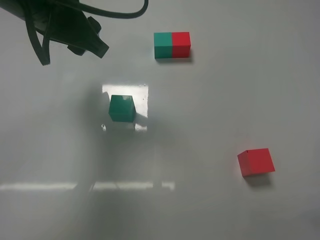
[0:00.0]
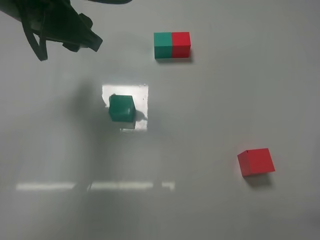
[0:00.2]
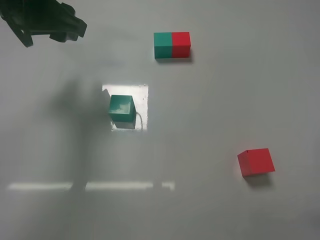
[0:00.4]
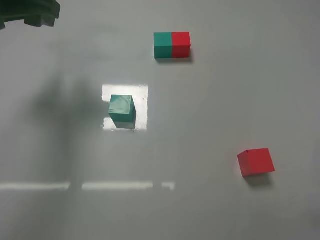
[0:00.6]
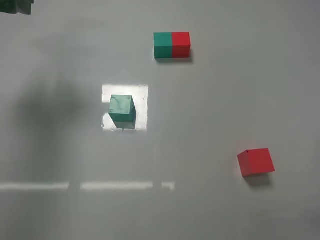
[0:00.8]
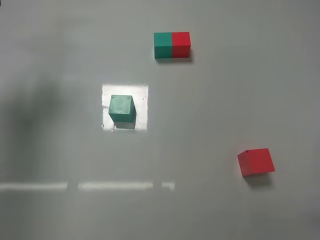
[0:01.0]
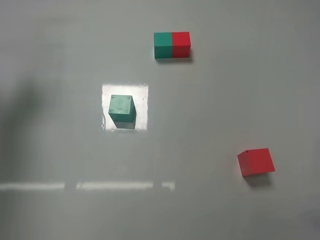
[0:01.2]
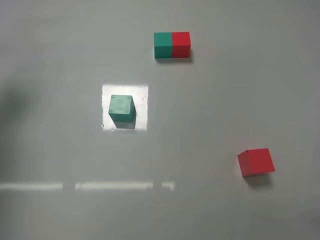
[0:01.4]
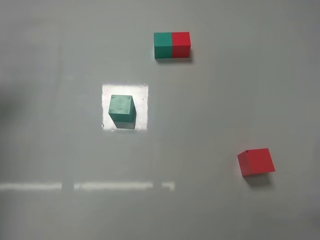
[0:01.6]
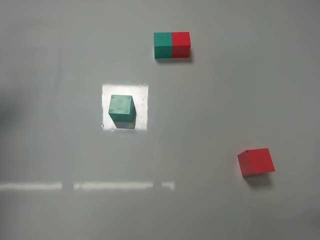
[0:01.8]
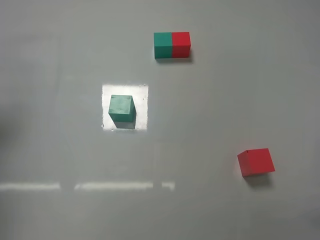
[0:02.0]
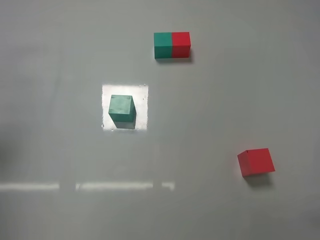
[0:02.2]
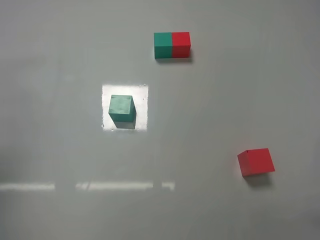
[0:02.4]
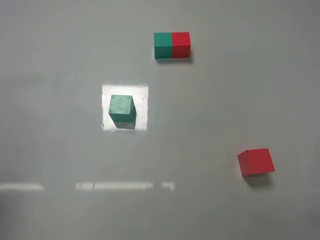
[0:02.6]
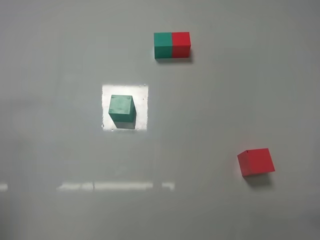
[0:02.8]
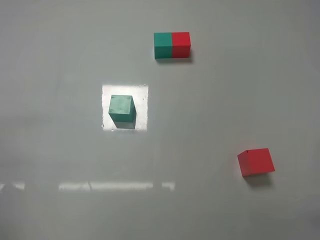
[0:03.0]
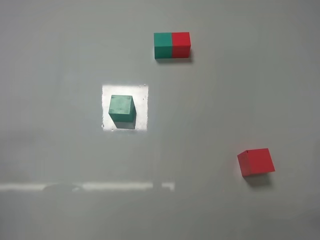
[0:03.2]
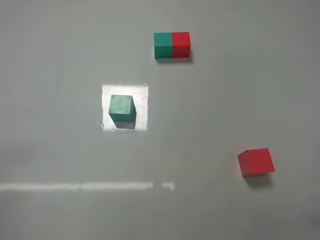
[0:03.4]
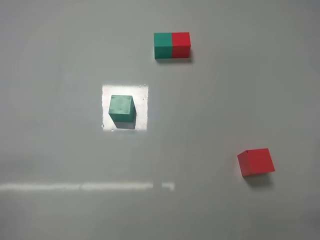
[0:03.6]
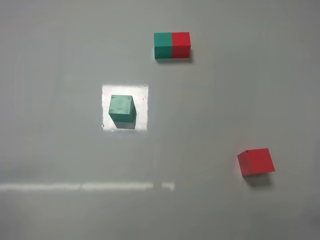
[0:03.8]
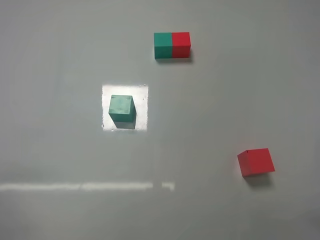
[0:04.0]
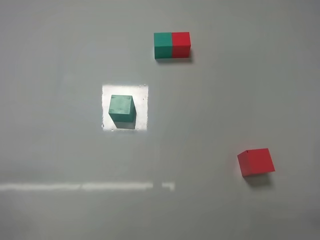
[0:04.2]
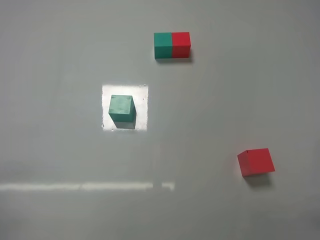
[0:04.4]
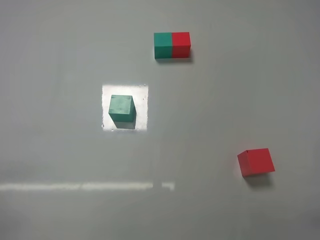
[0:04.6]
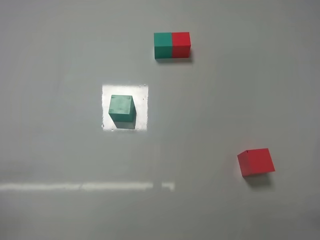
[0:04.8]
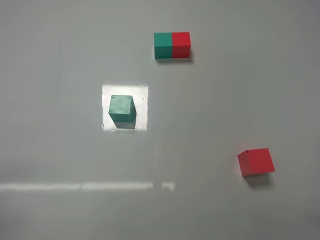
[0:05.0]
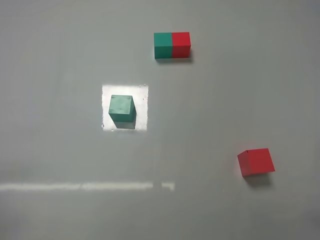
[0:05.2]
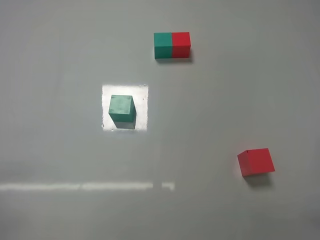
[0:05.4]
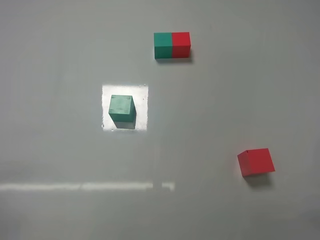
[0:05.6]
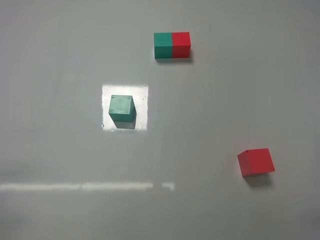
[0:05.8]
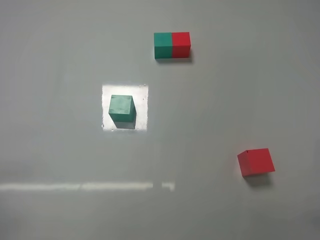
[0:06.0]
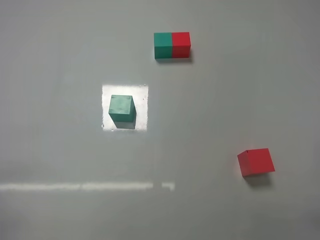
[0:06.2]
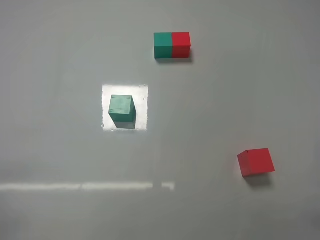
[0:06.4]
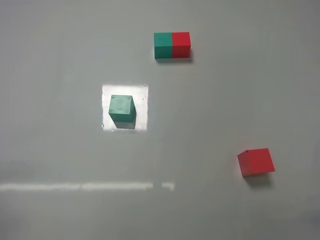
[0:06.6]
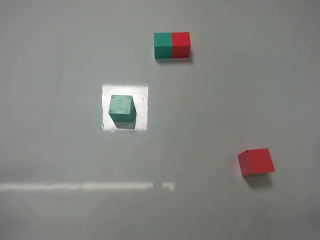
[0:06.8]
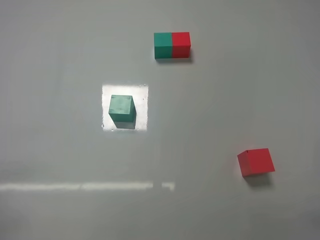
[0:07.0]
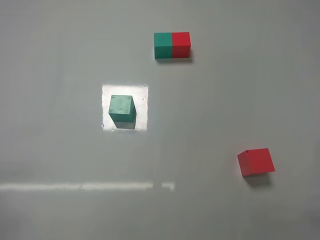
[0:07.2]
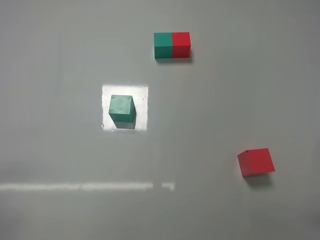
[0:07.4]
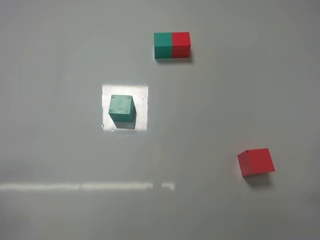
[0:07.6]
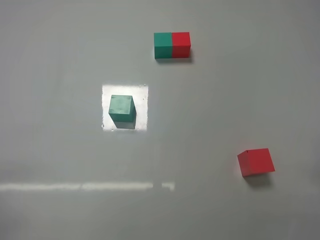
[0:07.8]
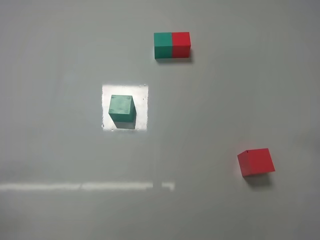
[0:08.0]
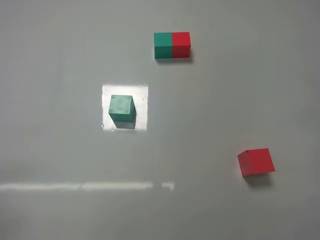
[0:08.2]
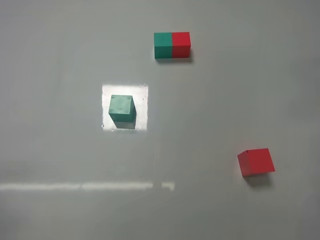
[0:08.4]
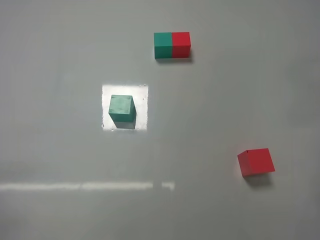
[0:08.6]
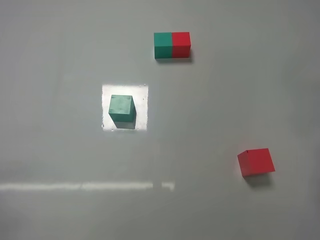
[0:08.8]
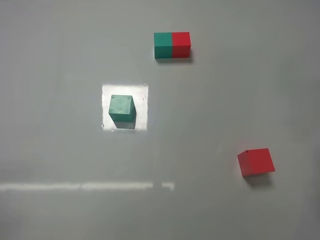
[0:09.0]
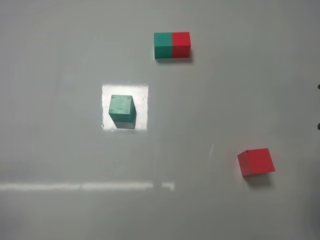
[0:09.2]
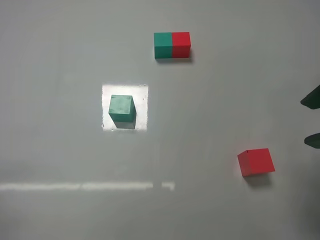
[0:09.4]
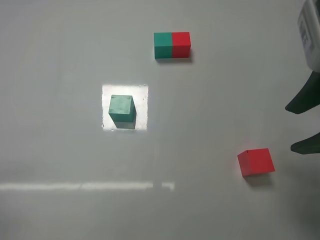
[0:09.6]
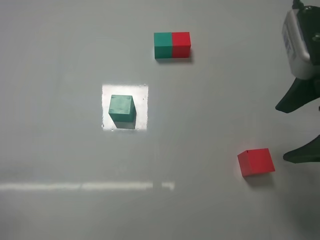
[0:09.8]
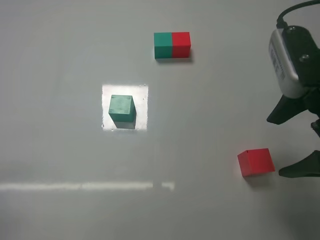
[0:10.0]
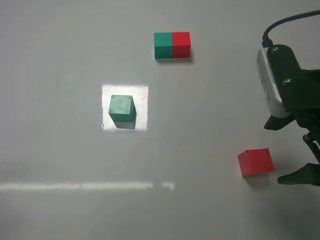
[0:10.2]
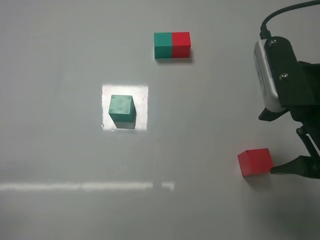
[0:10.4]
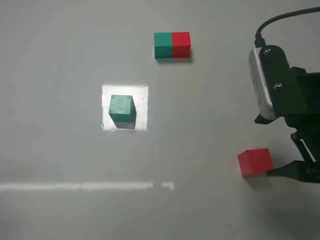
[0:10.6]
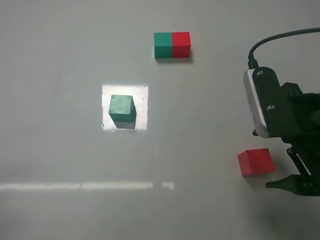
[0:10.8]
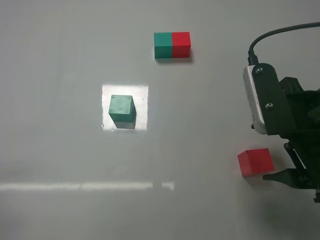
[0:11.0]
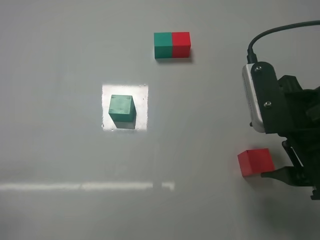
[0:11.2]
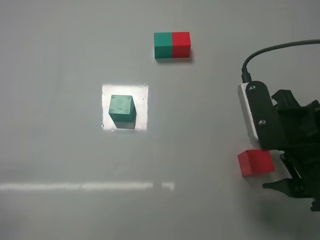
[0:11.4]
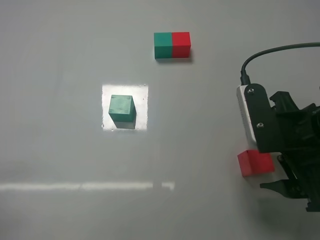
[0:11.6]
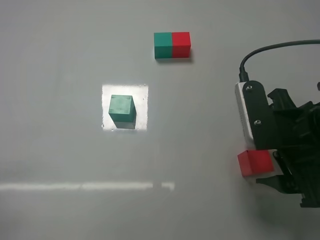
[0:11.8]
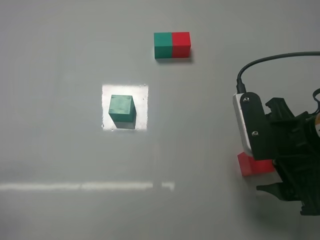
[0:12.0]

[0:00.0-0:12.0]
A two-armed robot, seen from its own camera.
Task of the whole recording: According to the building block template in front, assemble the scattered blocks together.
0:00.0 to 0:01.6: The left gripper travels to the left by some 25 cm.
0:01.6 to 0:03.0: The left gripper shifts about 25 cm backward and downward.
0:04.4 to 0:06.0: Both grippers stay put.
0:09.0 to 0:10.4: The right gripper heads to the left and downward, covering about 10 cm, and opens up.
0:10.4 to 0:12.0: The right gripper goes some 5 cm downward.

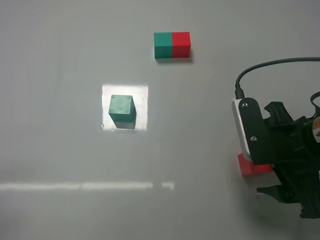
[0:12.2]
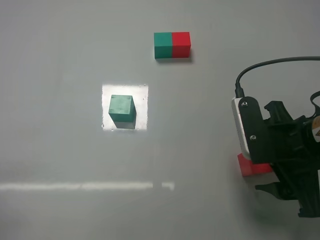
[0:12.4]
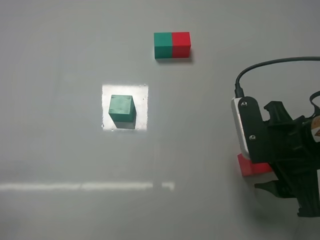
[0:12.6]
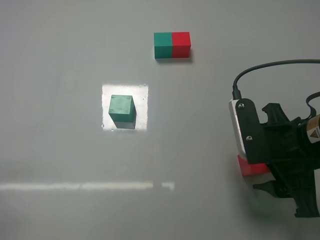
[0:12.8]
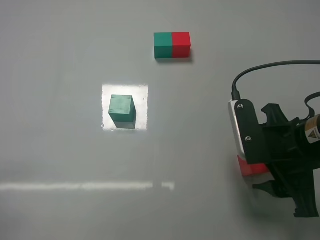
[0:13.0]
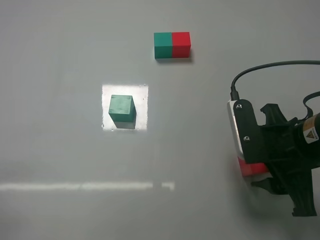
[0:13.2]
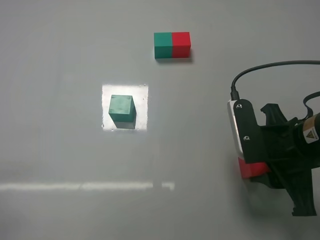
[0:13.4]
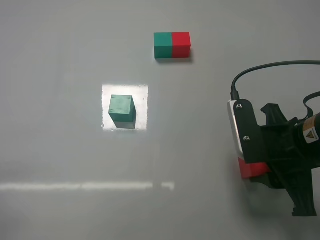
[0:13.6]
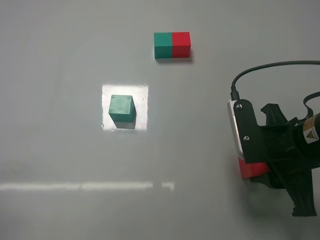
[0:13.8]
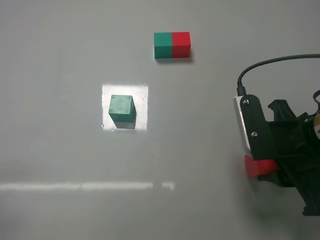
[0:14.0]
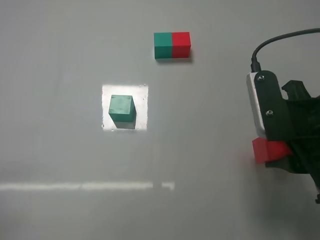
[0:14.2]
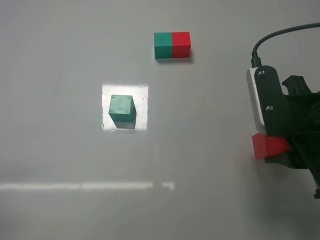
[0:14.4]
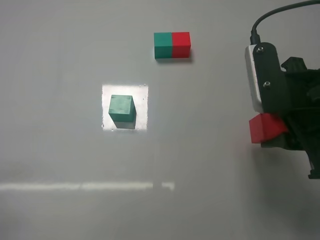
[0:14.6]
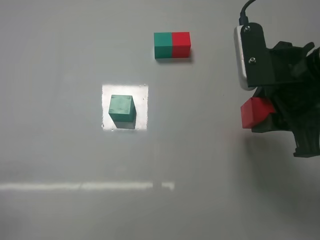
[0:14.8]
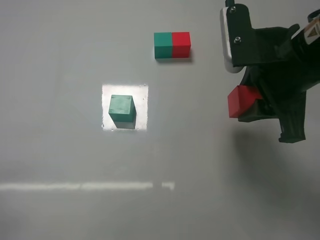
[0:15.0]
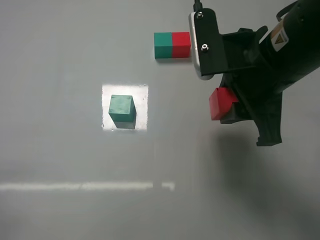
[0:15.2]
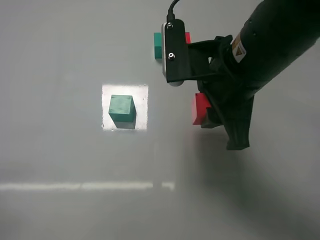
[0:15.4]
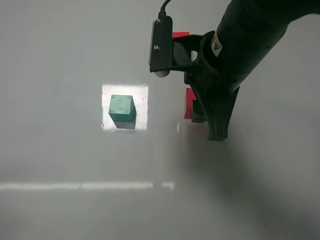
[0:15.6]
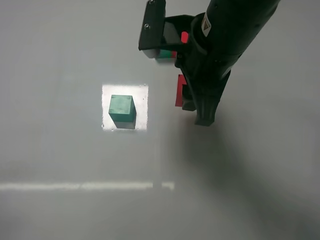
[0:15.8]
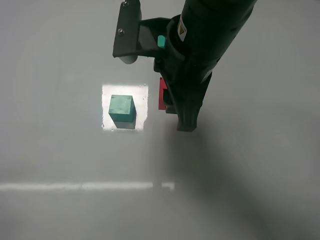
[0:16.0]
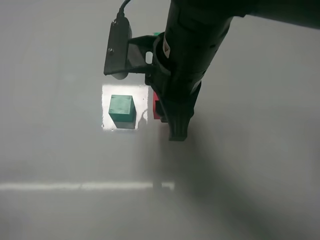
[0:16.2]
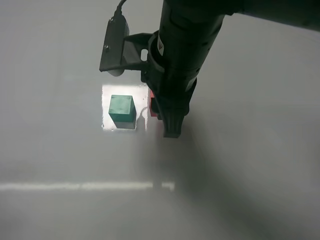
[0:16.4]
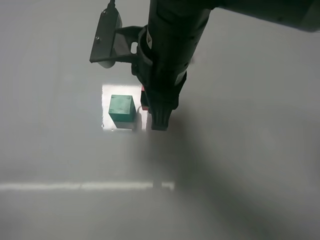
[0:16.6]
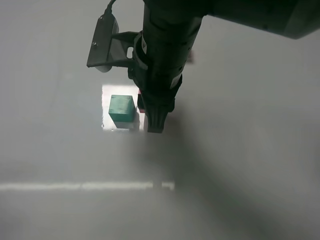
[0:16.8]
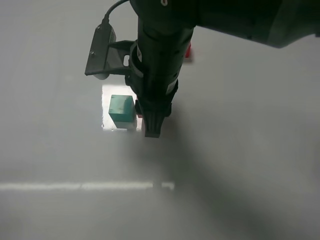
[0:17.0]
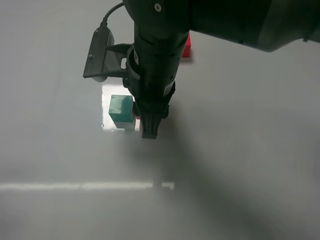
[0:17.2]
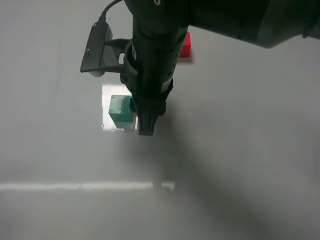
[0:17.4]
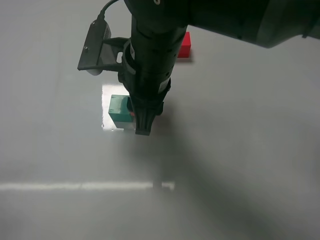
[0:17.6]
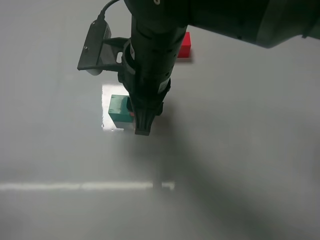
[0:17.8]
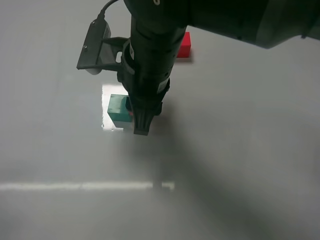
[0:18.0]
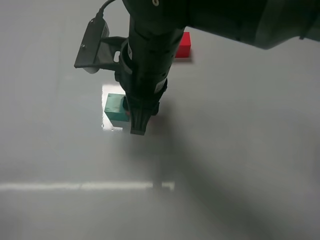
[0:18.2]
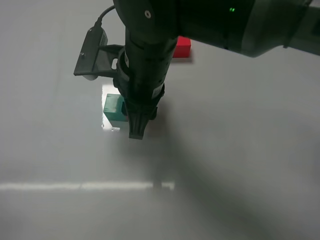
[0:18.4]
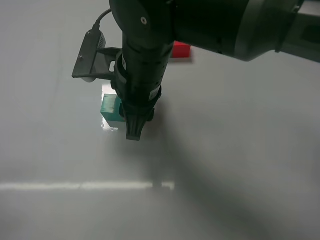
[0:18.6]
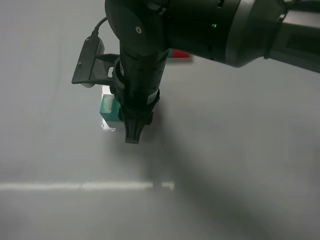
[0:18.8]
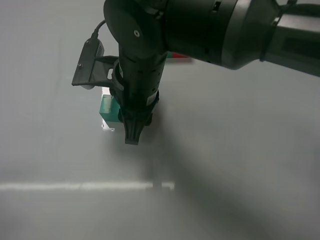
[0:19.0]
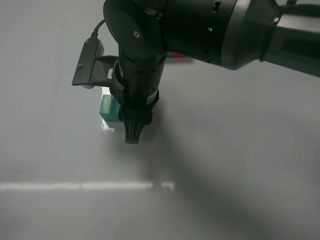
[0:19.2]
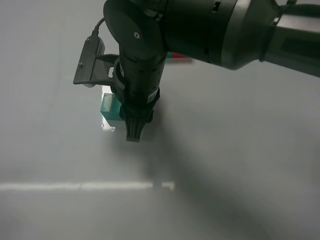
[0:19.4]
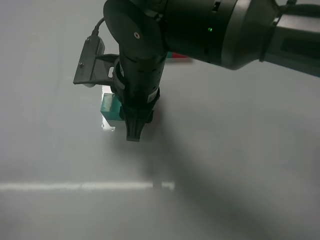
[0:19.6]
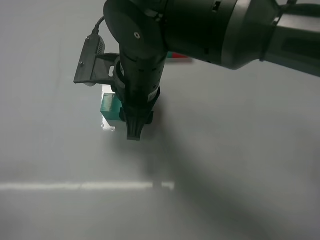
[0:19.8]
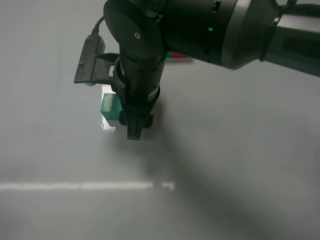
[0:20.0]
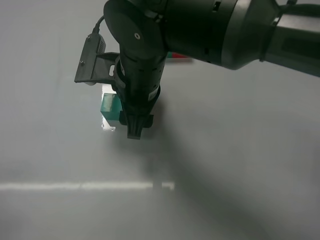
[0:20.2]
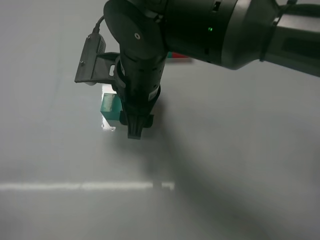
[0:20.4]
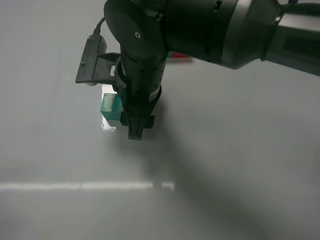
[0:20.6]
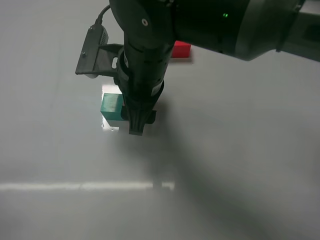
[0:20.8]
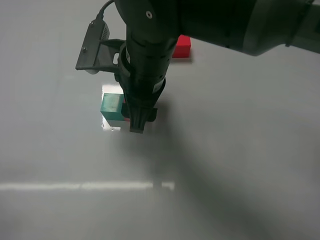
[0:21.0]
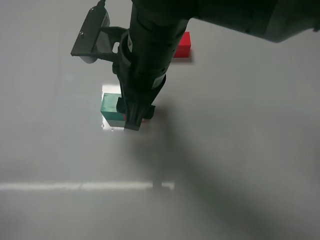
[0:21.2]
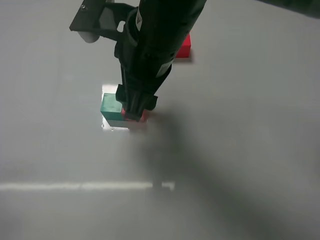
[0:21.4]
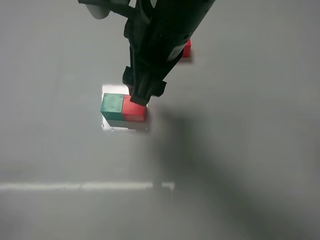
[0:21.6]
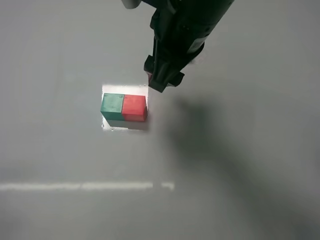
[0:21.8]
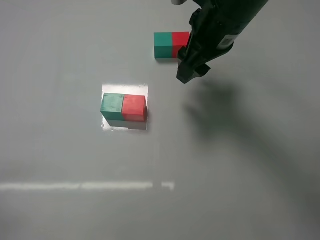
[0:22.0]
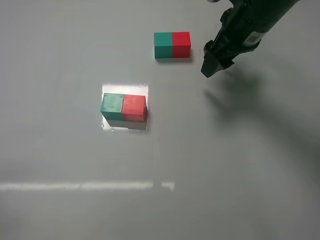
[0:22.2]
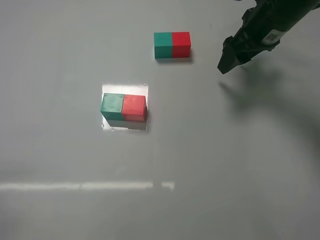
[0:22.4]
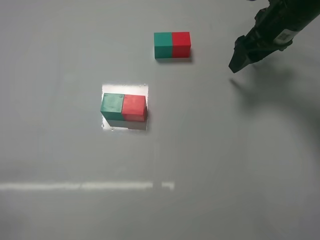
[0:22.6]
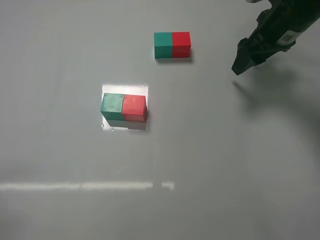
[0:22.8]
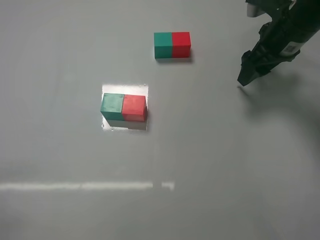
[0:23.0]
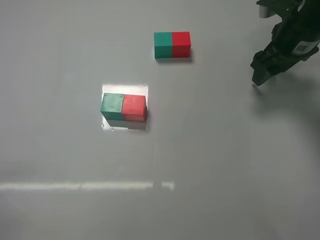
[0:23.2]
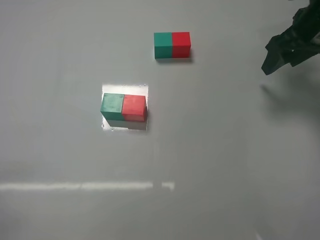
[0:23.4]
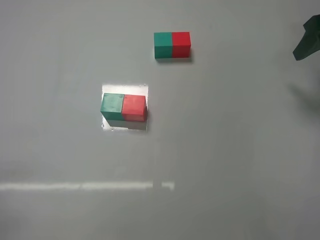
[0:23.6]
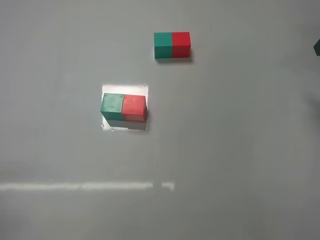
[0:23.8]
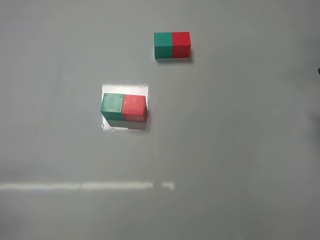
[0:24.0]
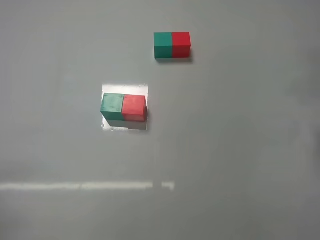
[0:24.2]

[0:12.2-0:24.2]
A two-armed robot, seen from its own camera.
Task of the whole recording: According to the building block template in front, assemble the scattered blocks together.
Step, 0:14.0 to 0:20.4: Put the red cube on the right of the green cube with the right gripper.
0:12.2 to 0:13.8: The right gripper closes its fingers.
0:13.8 to 0:15.2: The right gripper travels upward and to the left by about 10 cm.
0:15.2 to 0:16.6: The right gripper travels to the left by approximately 10 cm.
0:16.6 to 0:21.2: The grippers move only a little.
0:21.2 to 0:22.6: The right gripper travels to the right and forward by some 25 cm.
0:22.6 to 0:24.2: The right gripper is displaced backward and to the right by approximately 20 cm.
